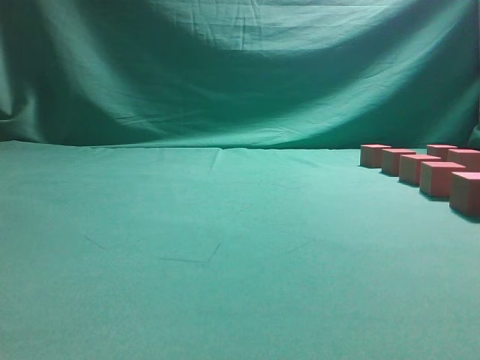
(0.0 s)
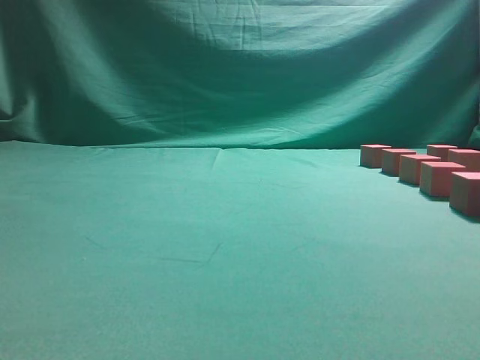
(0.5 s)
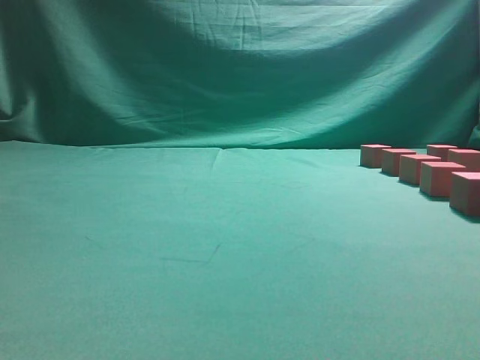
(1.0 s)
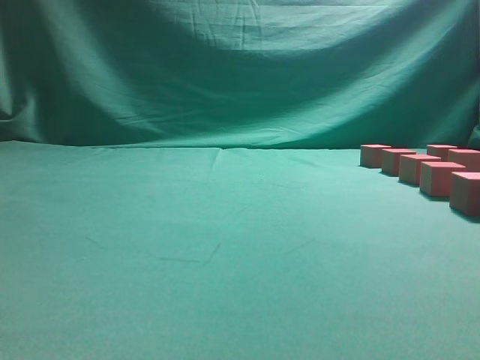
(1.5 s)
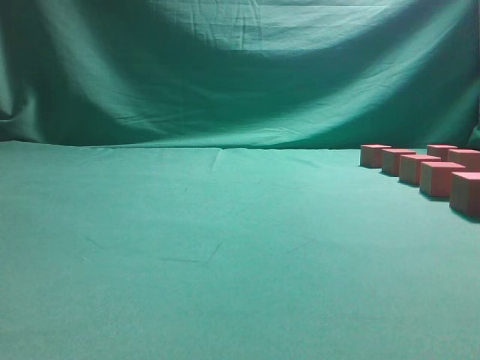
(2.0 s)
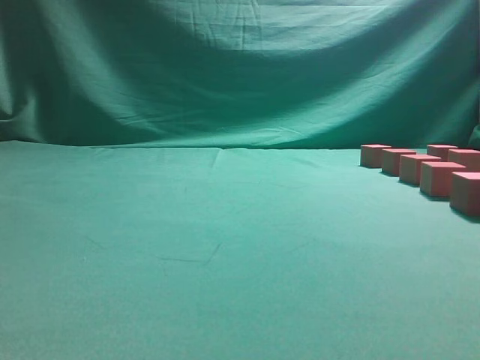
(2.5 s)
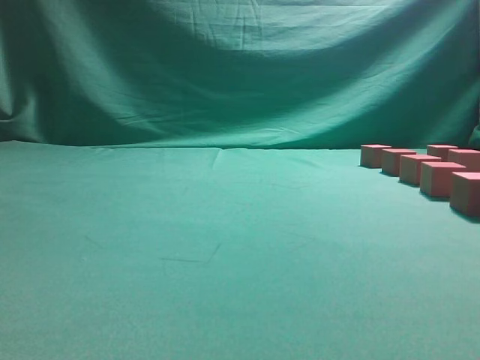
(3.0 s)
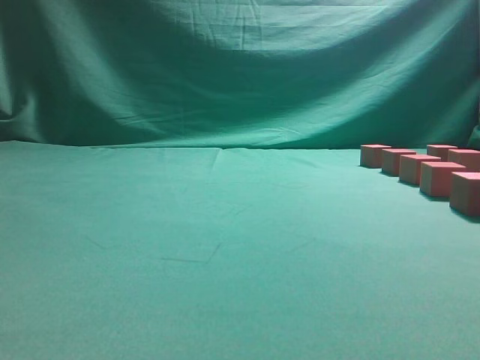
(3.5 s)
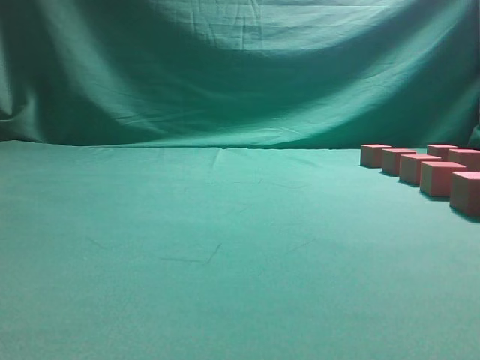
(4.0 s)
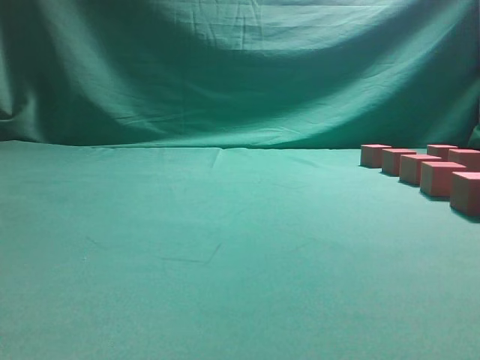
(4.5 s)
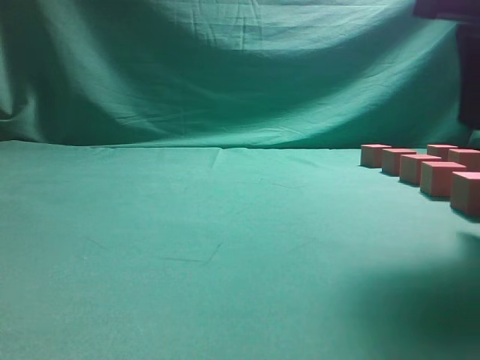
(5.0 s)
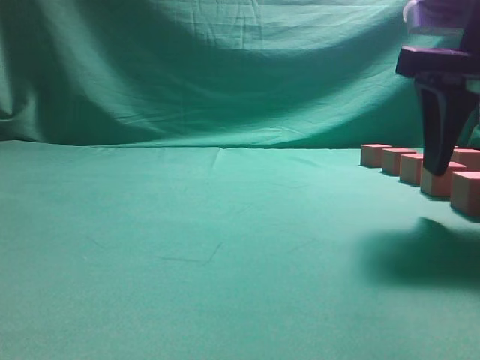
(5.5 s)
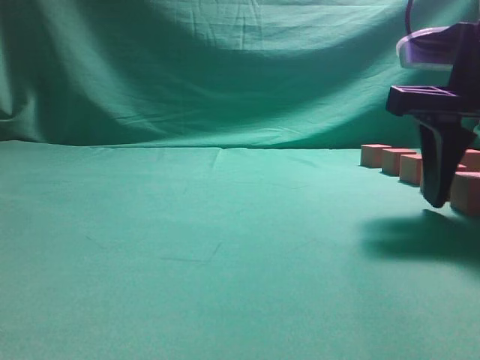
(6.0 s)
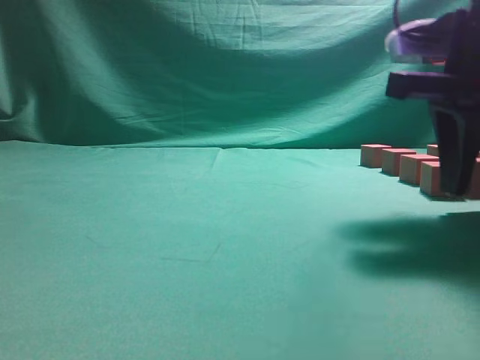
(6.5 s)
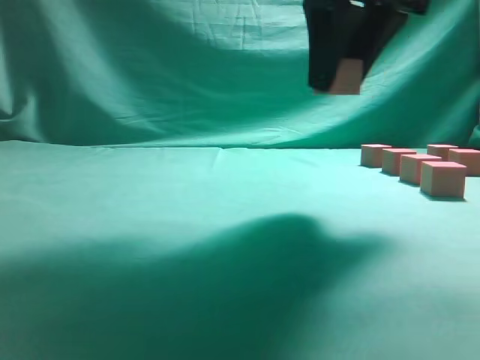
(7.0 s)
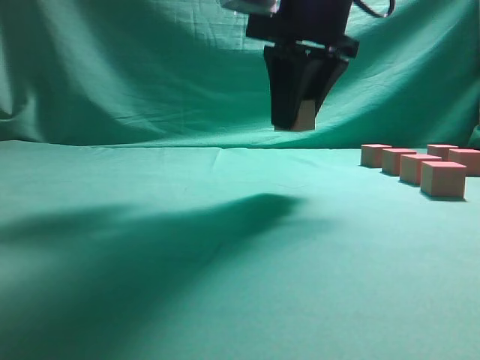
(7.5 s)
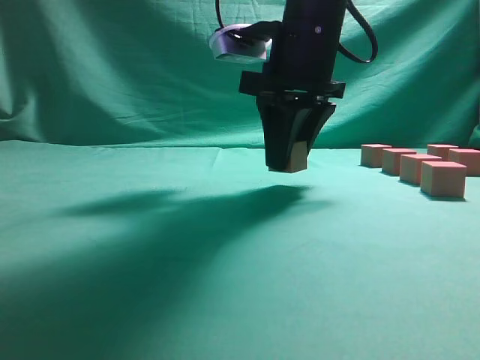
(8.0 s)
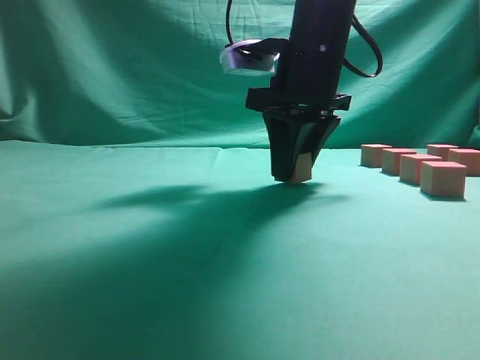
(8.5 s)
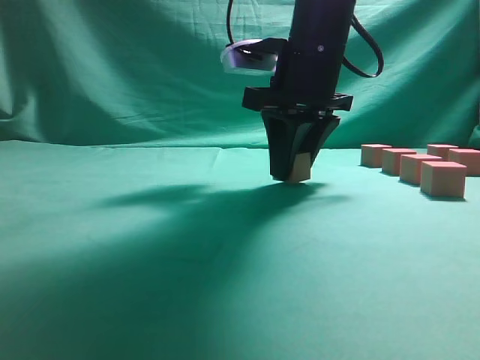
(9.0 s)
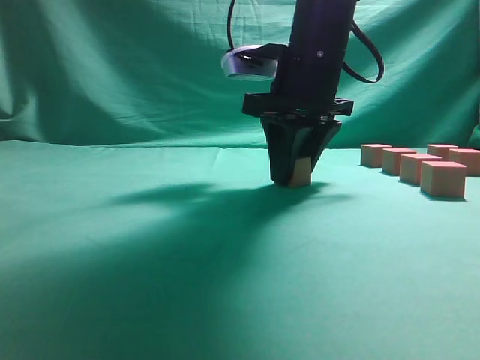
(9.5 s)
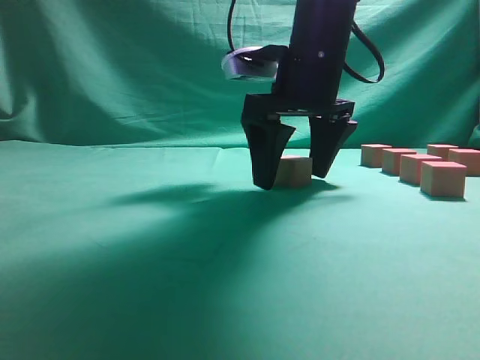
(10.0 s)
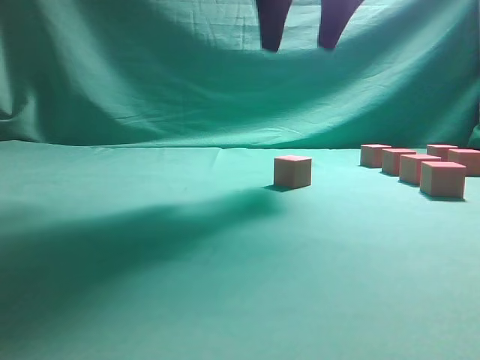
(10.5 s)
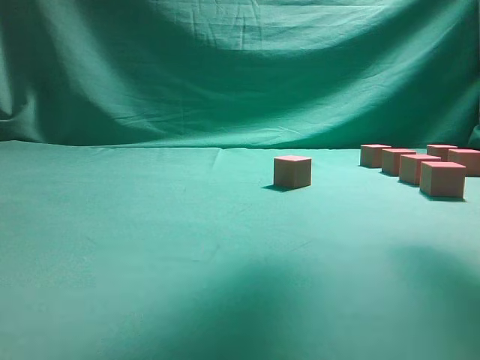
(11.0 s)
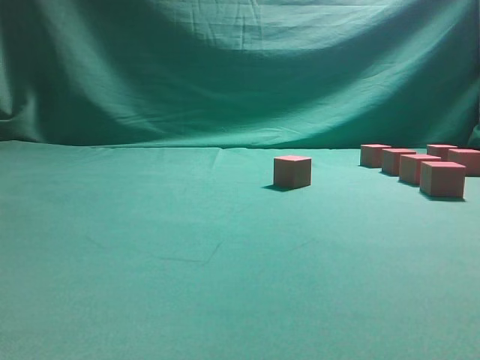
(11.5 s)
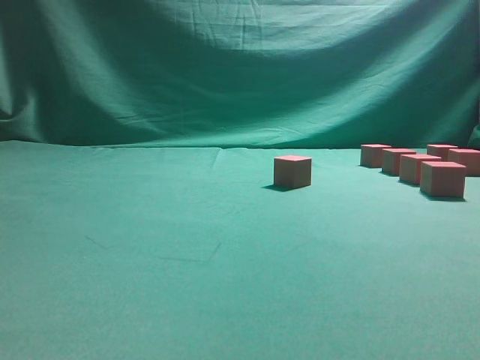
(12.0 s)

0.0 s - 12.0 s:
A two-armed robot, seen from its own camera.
Task of the whole recording: pick up the multiple cubes in two columns one by one and place them in another position on the table.
Step, 0.0 s - 6.5 s: Pick up the block on the table.
Step, 7.0 s - 10.0 s: Place the block at the correct position to assemble the letter S.
4.0 s - 6.0 s: The right gripper shifts about 15 cm forward, downward and to the left, and opens its fingers.
6.0 s - 8.0 s: The right gripper heads to the left and forward, covering some 15 cm.
8.0 s - 10.0 s: The right gripper opens its fingers.
10.0 s - 12.0 s: The right gripper moves to the right and backward, about 25 cm.

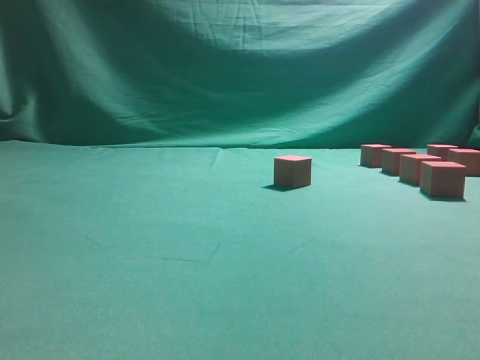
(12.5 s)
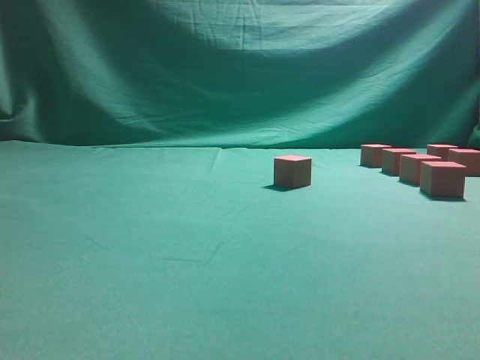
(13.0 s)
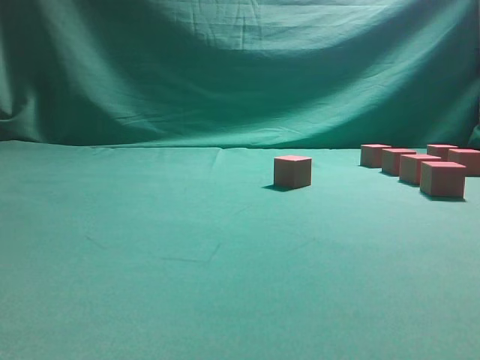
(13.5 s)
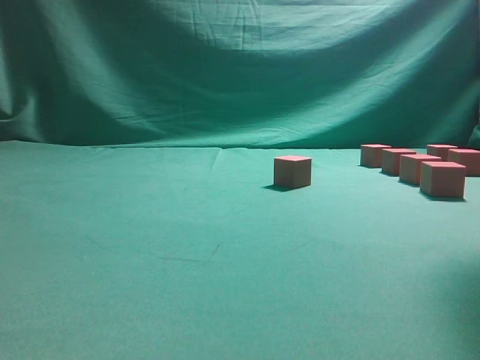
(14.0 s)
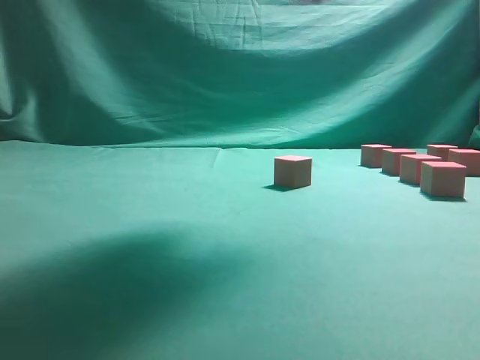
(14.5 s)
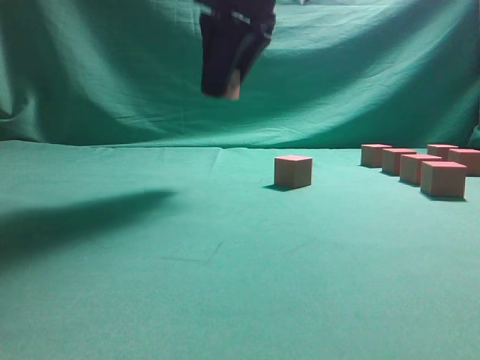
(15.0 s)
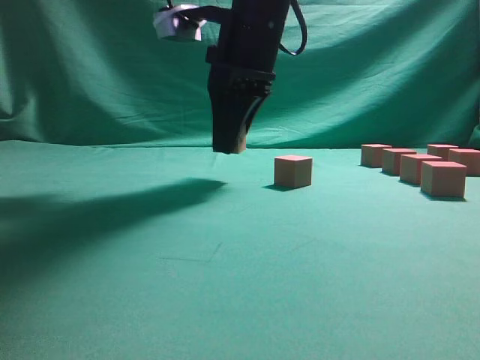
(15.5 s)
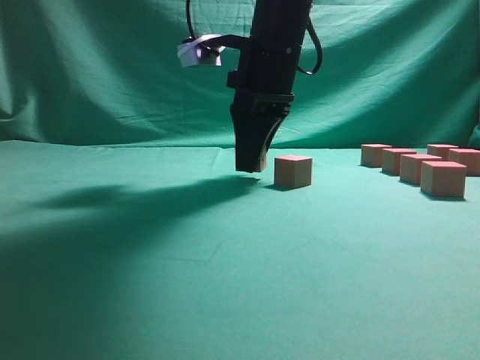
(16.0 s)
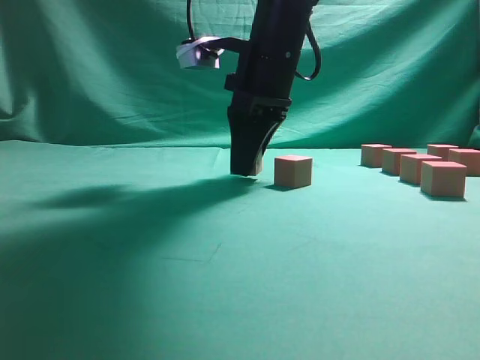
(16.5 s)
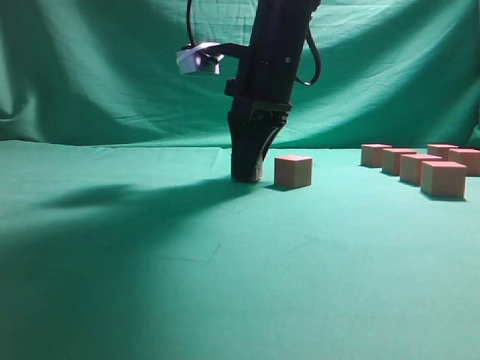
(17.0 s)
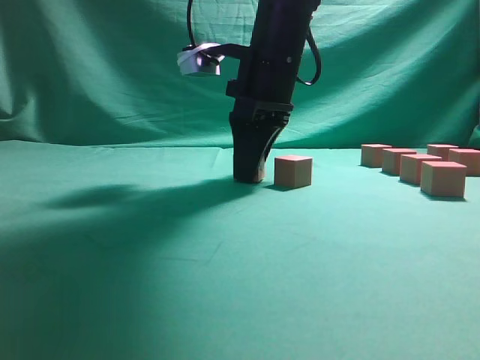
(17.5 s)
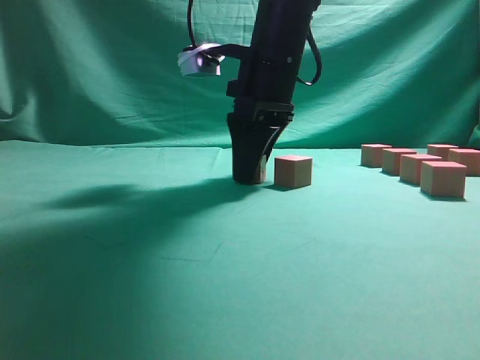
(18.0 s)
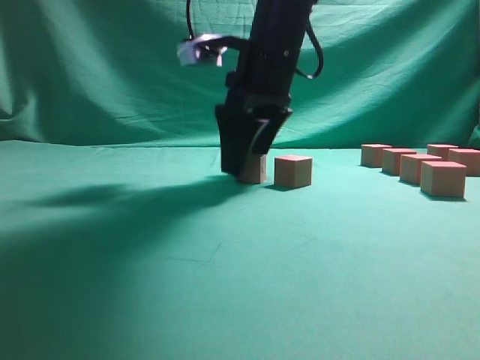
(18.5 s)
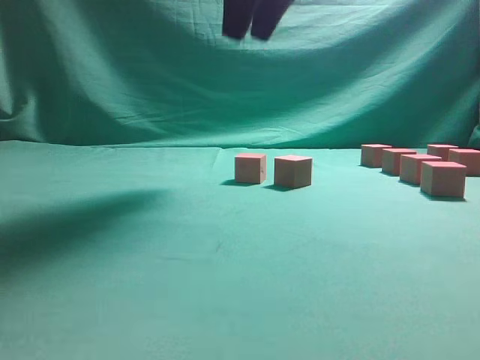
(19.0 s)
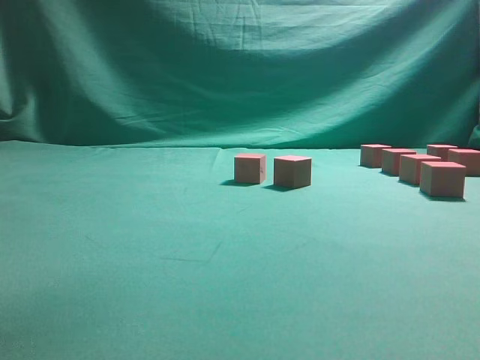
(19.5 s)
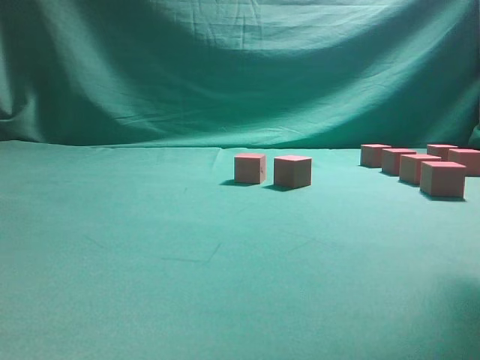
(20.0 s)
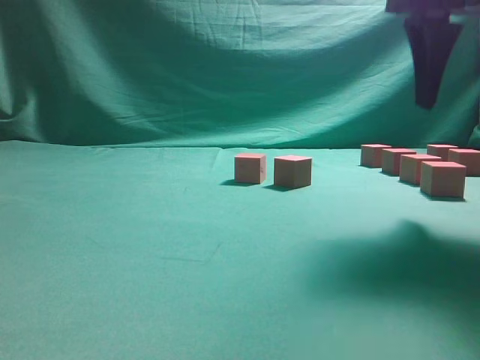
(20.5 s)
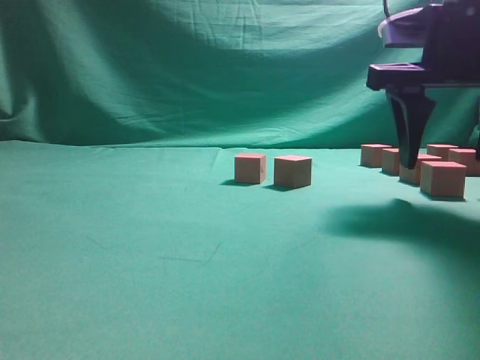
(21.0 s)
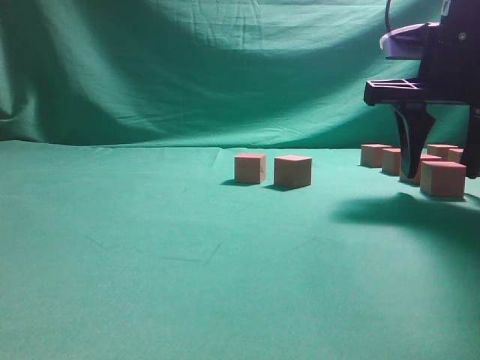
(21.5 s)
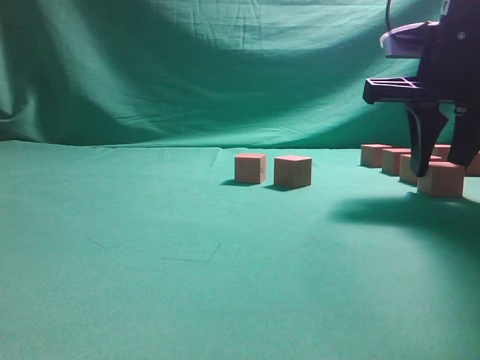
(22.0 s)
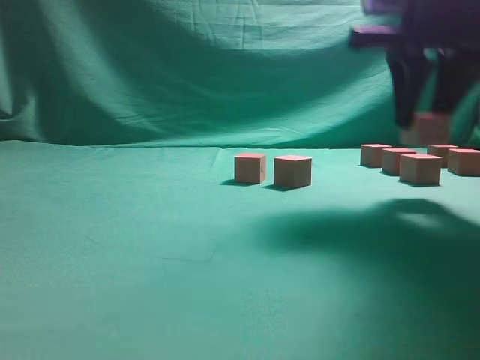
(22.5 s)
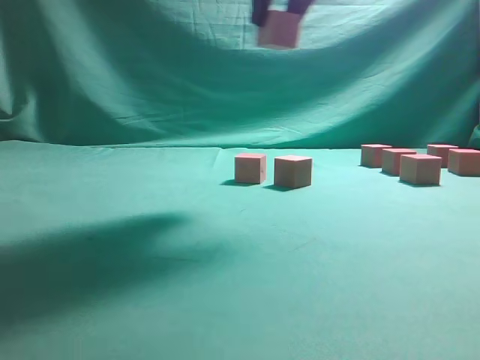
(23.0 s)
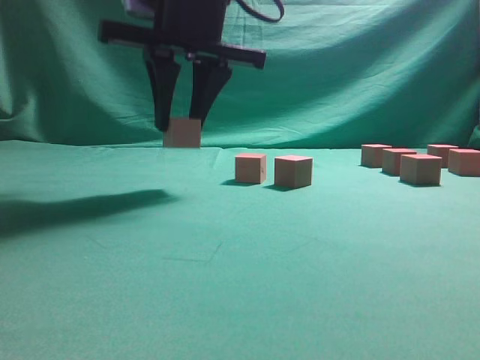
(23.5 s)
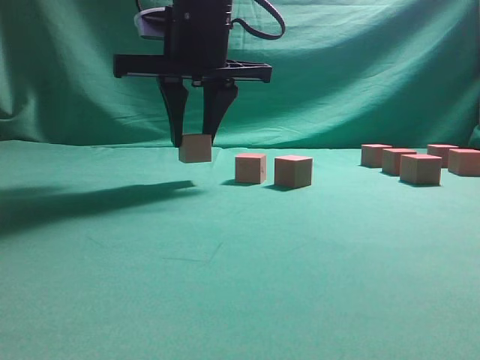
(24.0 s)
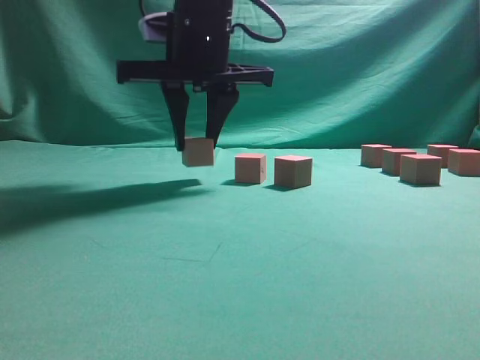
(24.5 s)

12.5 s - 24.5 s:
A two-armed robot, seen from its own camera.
Task of the whole recording: pick up the multiple cubes in two columns one by one and place them in another position on the table.
Step, 14.5 s - 18.5 s: Place the block at the correct position to assemble the letter S.
Step, 19.0 s - 22.0 s: Pick up the block on the table.
12.5 s - 14.5 s: The right gripper travels to the left and upward by about 25 cm, and closes its fingers.
14.5 s - 16.5 s: The right gripper travels downward, forward and to the left by approximately 20 cm.
16.5 s - 18.5 s: The right gripper opens up.
18.5 s - 20.5 s: The right gripper moves to the right and backward, roughly 20 cm, and goes upward and returns, some 25 cm each way.
20.5 s - 22.5 s: The right gripper closes up.
22.5 s - 24.5 s: The right gripper moves to the left, about 20 cm.

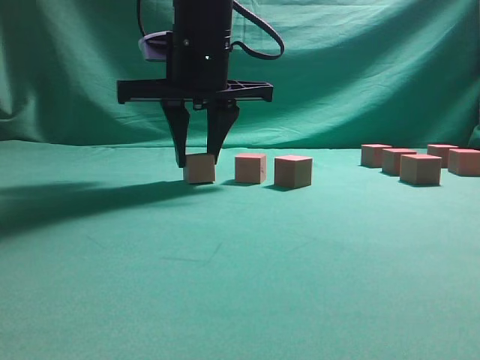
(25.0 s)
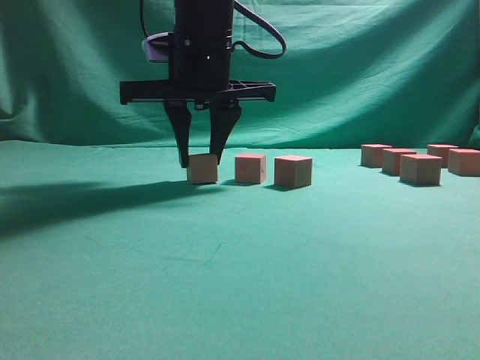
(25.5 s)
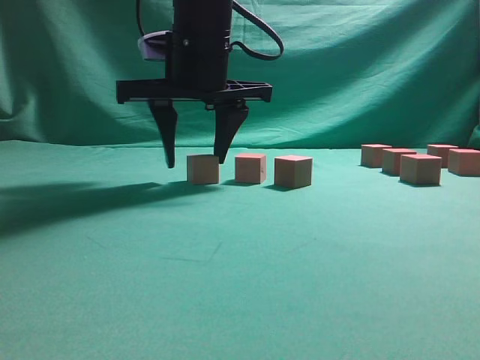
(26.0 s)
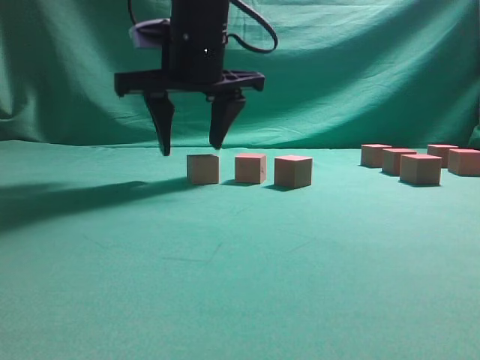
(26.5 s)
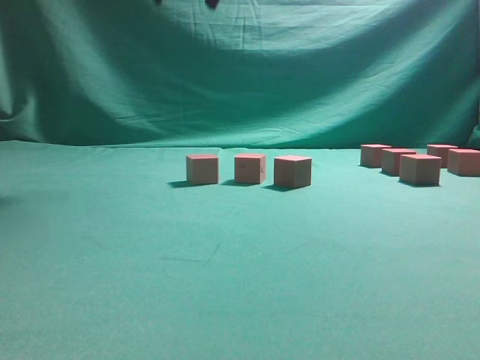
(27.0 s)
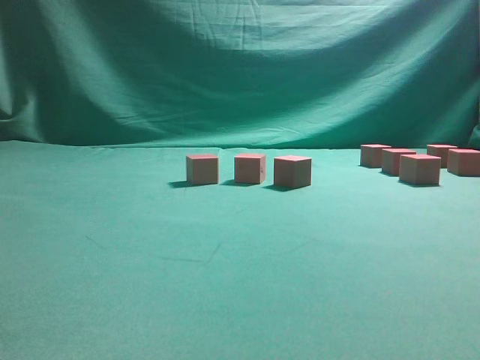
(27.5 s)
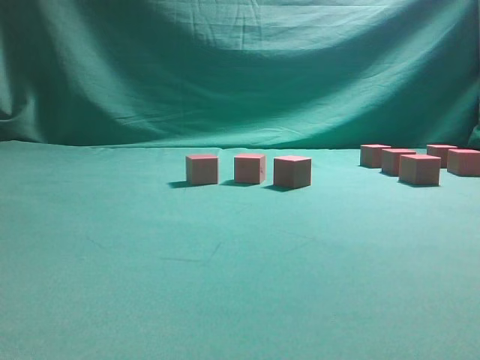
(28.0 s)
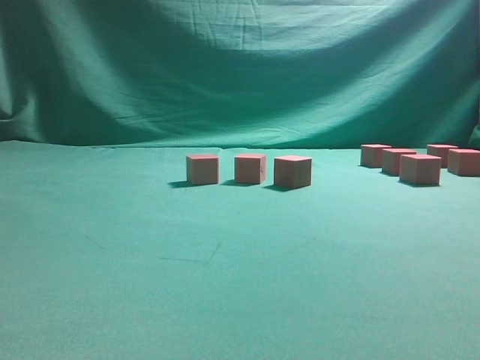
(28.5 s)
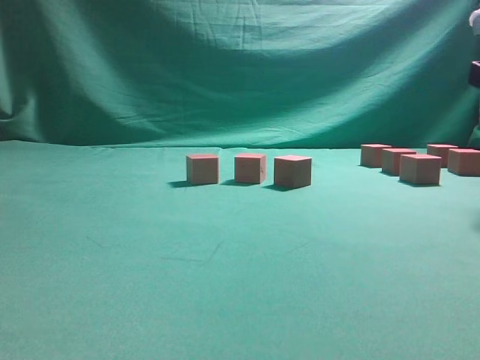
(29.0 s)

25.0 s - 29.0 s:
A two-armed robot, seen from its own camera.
Task of the whole recording: pick up the multiple cubes in two columns one by one and place them in another position on the table.
25.0 s - 27.0 s: The right gripper is displaced upward by some 15 cm.
